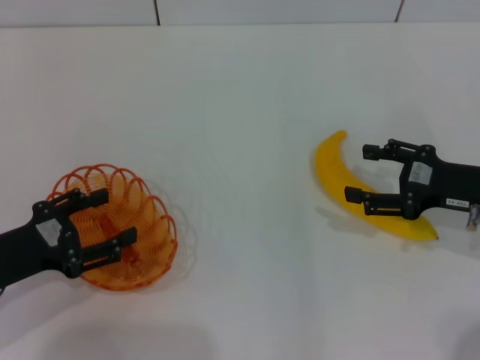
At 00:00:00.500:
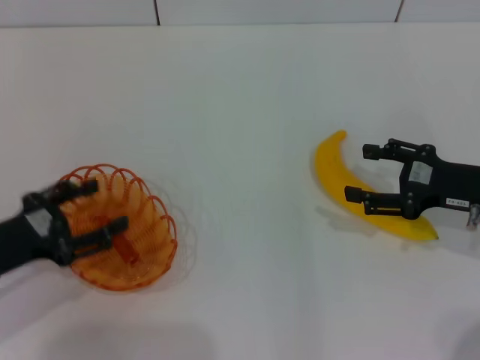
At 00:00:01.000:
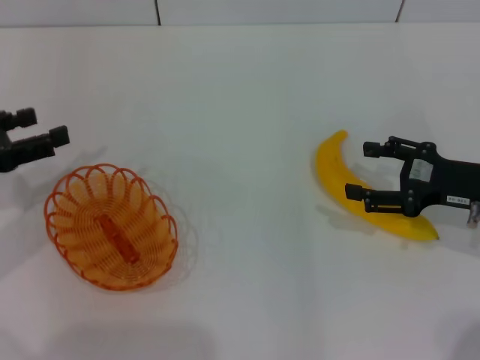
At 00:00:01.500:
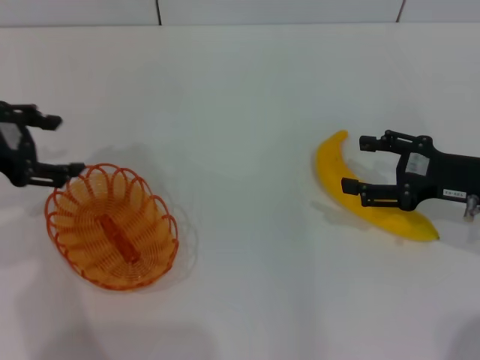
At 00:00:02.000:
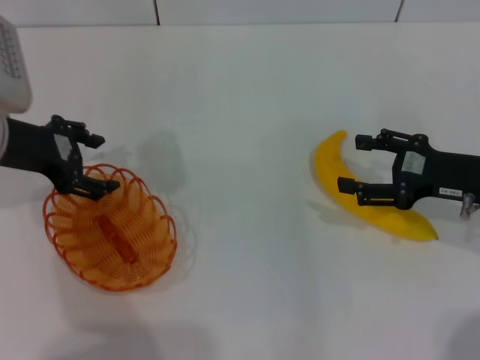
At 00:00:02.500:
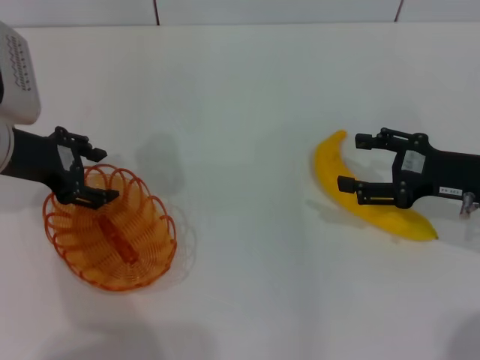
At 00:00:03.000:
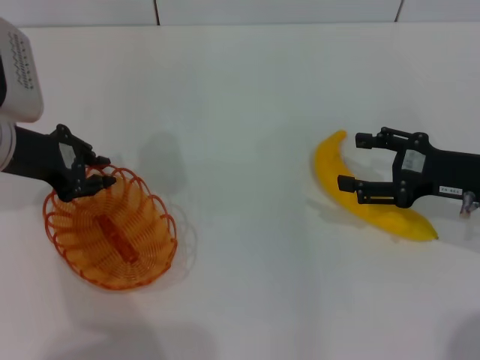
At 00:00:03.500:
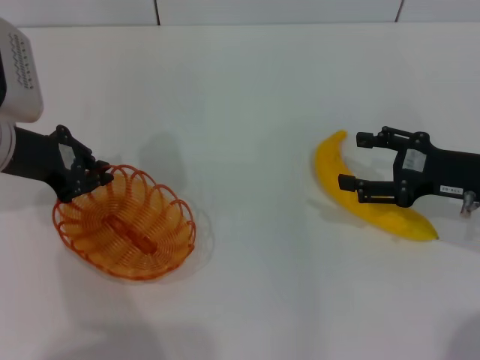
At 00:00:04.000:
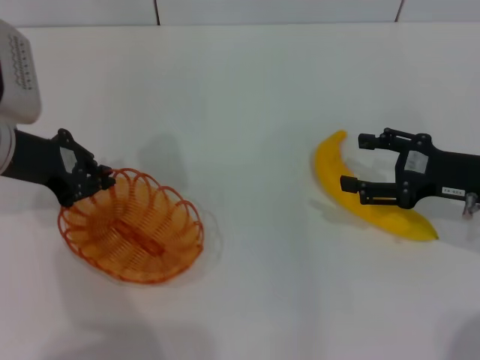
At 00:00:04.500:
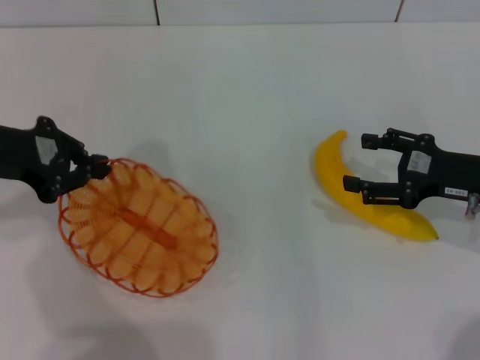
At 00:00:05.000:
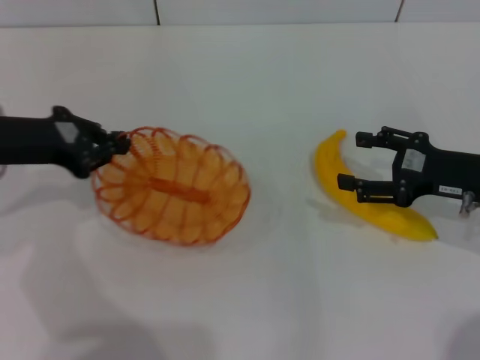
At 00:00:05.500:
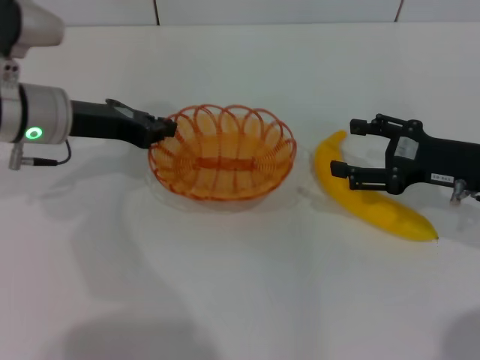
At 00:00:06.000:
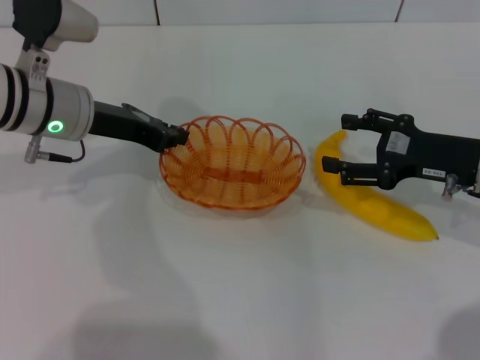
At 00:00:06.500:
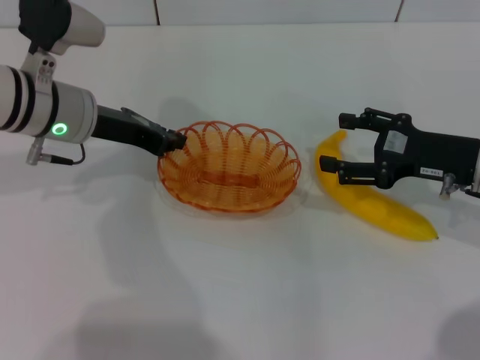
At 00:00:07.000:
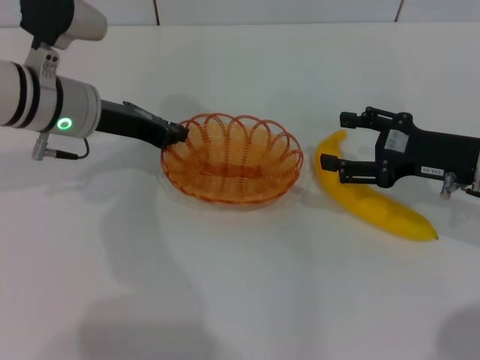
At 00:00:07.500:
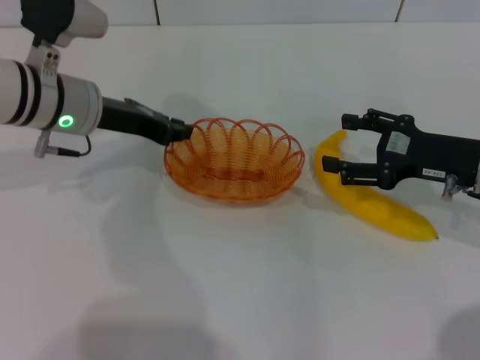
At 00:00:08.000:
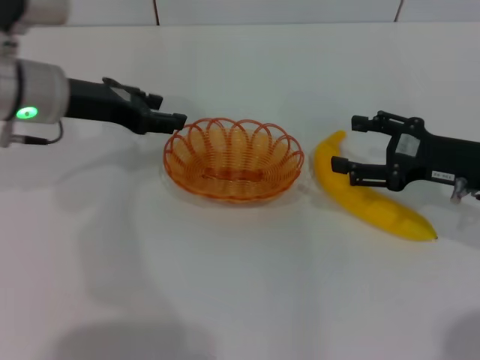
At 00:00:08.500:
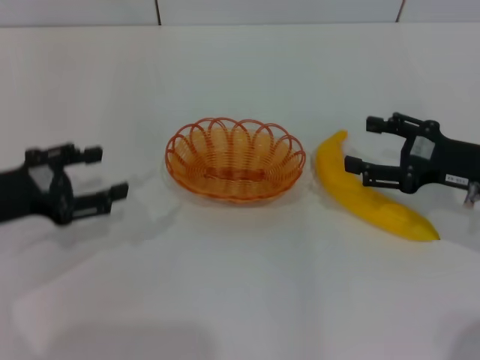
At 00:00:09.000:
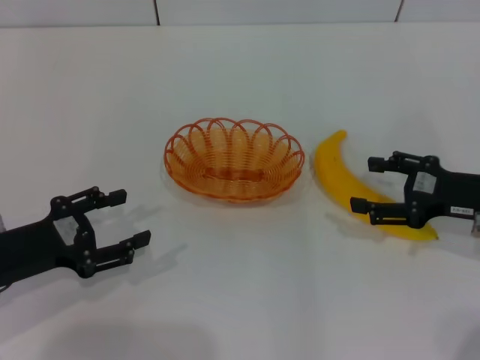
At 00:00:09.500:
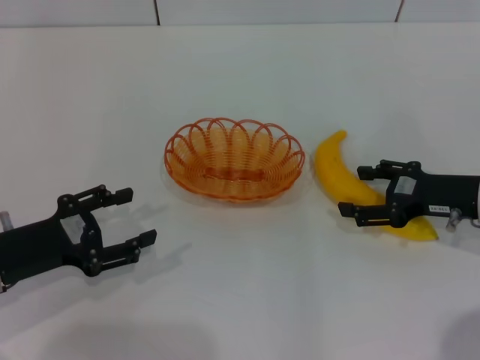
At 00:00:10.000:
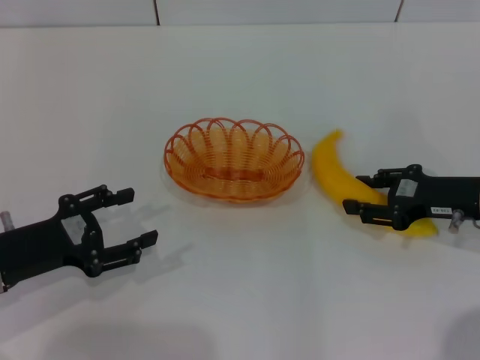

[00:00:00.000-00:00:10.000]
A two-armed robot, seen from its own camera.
Step, 00:00:00.000 to 00:00:04.000: Pick up the basket with the left gripper.
Step, 00:00:04.500 to 00:00:07.500: Place the basket in the center of view with the left gripper.
00:00:00.000 to 00:00:02.000: The left gripper shifts some 15 cm forward and upward.
00:00:02.000 to 00:00:04.000: The left gripper closes up.
00:00:04.000 to 00:00:06.000: The left gripper goes roughly 5 cm to the right.
00:00:06.000 to 00:00:08.000: The left gripper opens its fingers.
00:00:08.000 to 00:00:10.000: The left gripper goes approximately 20 cm backward, downward and to the left, and opens up.

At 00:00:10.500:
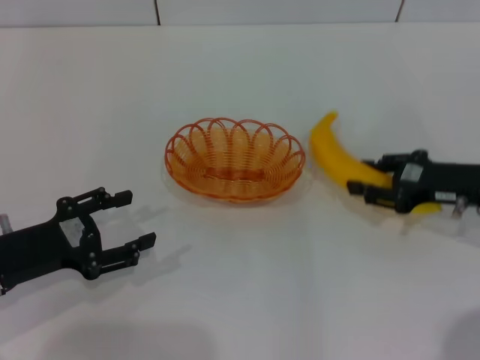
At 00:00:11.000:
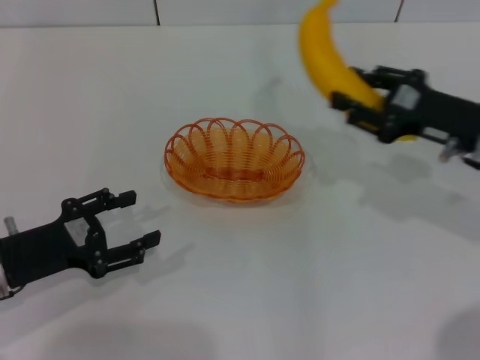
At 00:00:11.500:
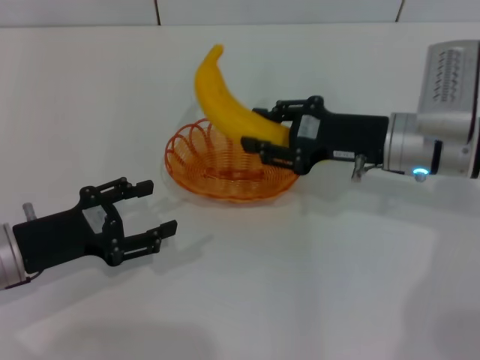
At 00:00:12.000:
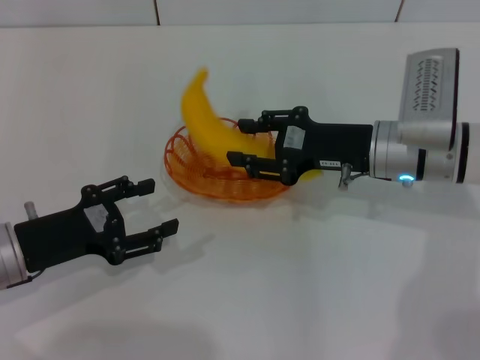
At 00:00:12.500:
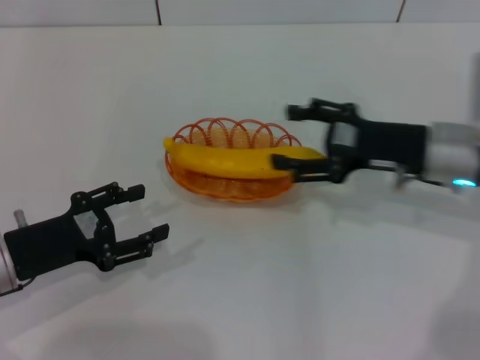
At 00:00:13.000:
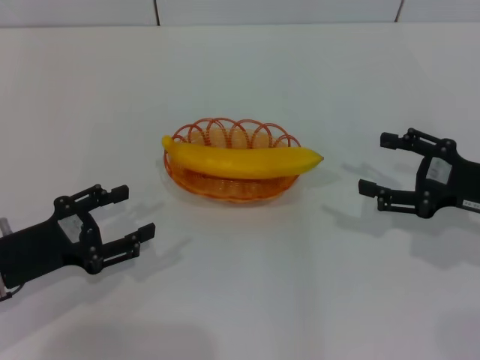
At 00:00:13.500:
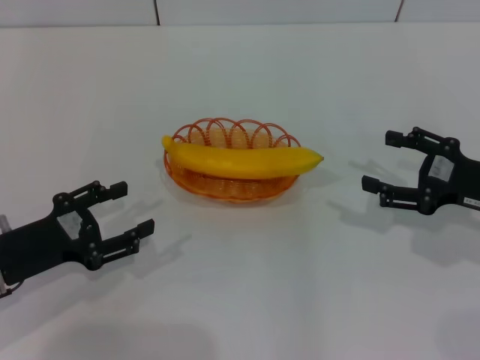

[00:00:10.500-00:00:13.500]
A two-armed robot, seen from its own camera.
Step, 00:00:11.000 to 00:00:12.000: Place the banana into the basket with the right gripper.
00:00:10.500 to 00:00:12.000: The right gripper travels to the left by roughly 10 cm.
00:00:12.000 to 00:00:13.500: The right gripper travels to the right and backward by about 15 cm, and opens up.
